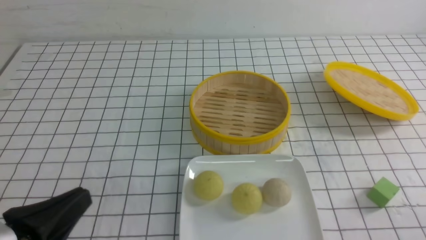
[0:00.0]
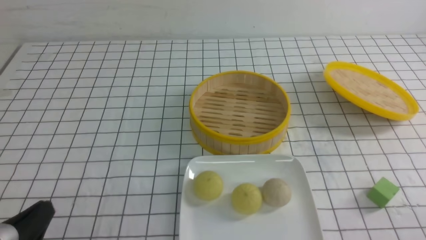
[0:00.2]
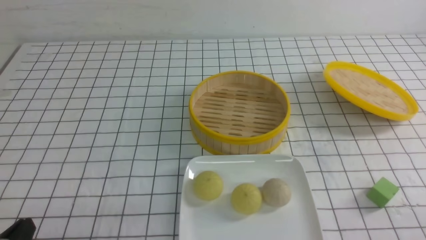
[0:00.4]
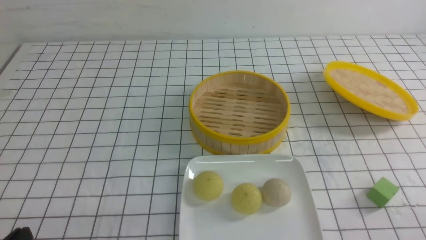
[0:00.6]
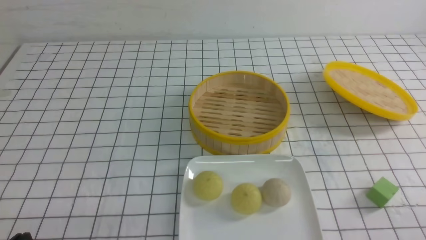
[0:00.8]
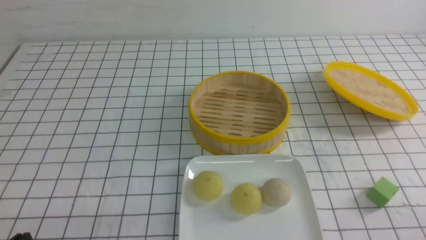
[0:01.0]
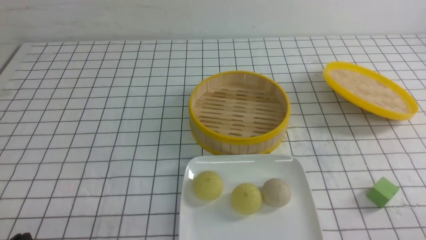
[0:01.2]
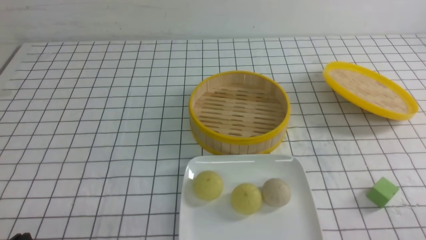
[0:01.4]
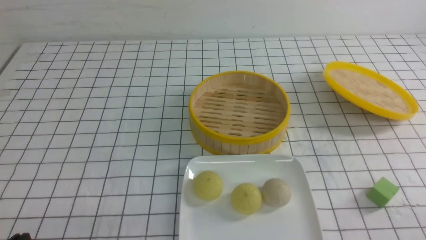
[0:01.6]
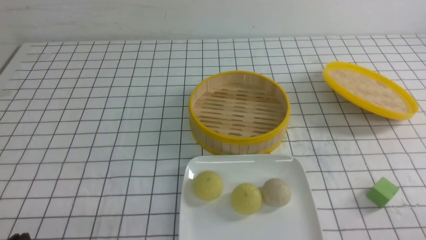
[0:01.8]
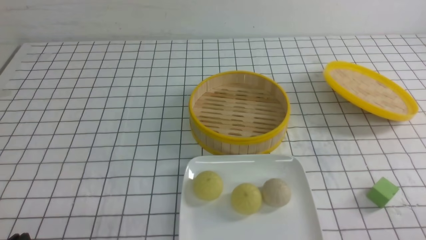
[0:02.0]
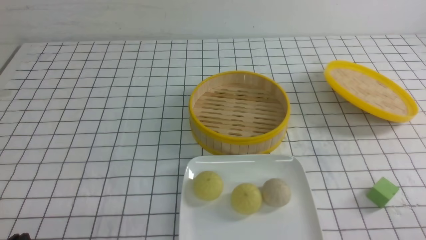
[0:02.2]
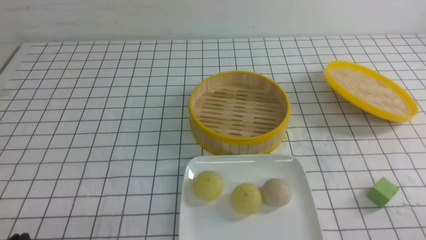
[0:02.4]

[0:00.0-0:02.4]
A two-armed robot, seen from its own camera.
0:00.0 to 0:01.2: The left gripper shifts about 5 cm downward.
0:01.2 to 0:02.4: Both grippers stay about where they are.

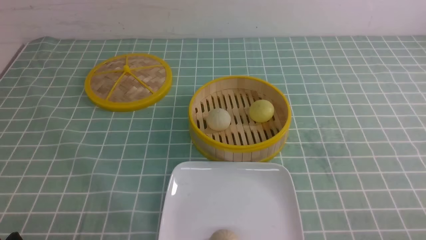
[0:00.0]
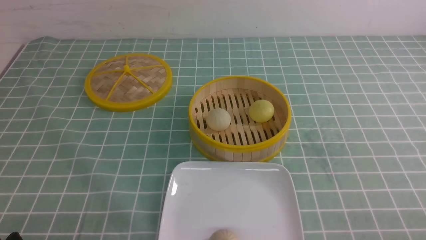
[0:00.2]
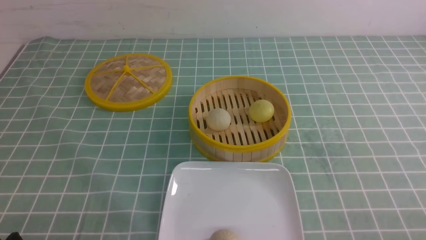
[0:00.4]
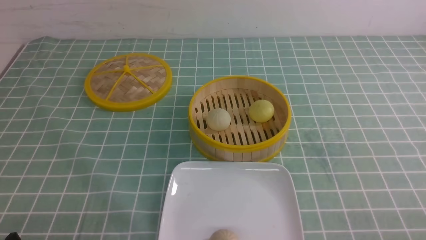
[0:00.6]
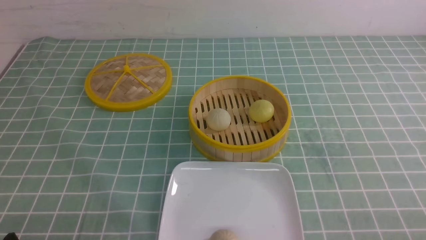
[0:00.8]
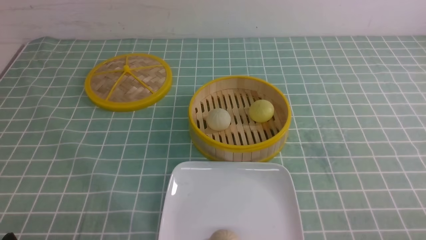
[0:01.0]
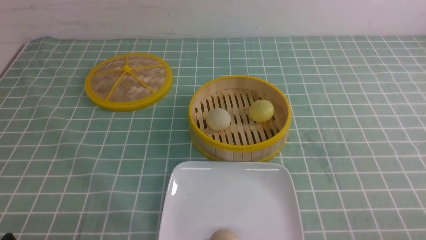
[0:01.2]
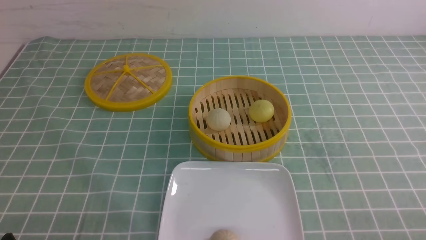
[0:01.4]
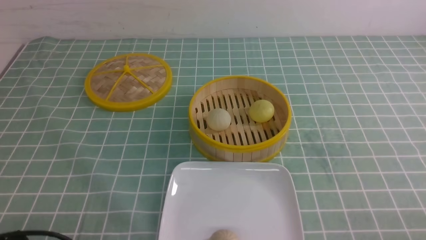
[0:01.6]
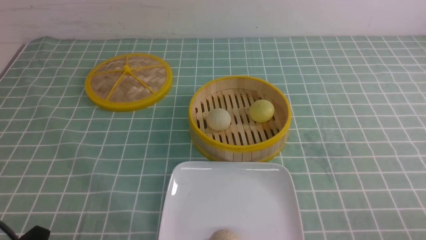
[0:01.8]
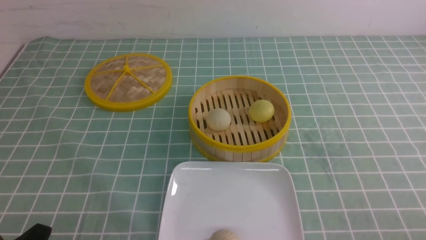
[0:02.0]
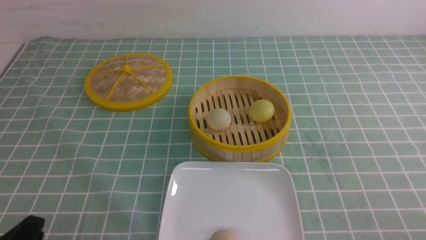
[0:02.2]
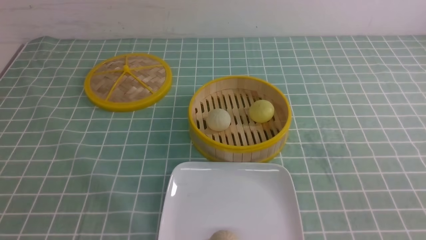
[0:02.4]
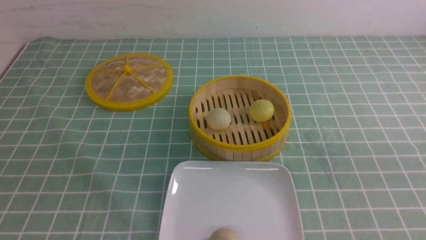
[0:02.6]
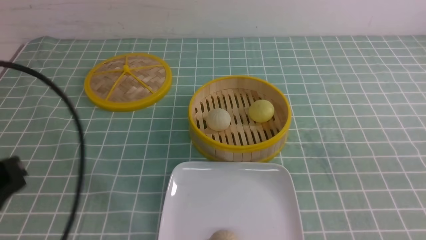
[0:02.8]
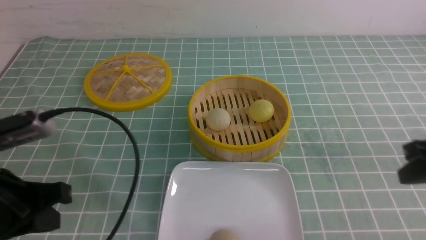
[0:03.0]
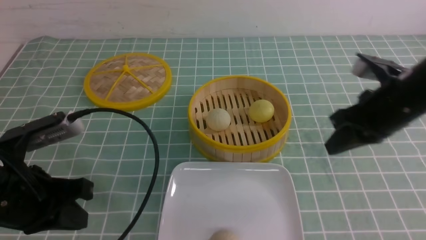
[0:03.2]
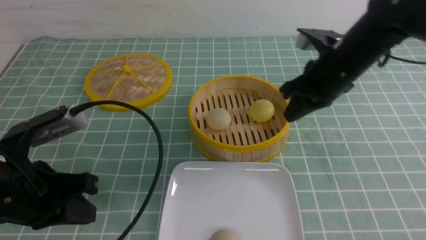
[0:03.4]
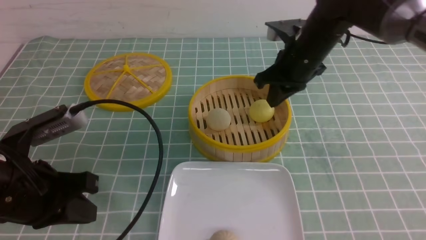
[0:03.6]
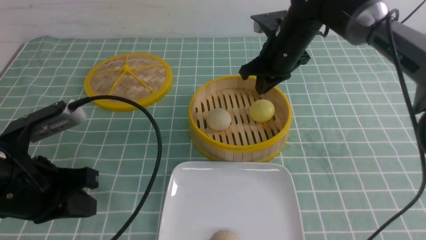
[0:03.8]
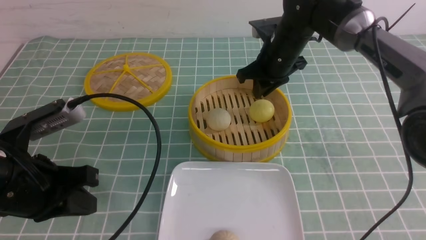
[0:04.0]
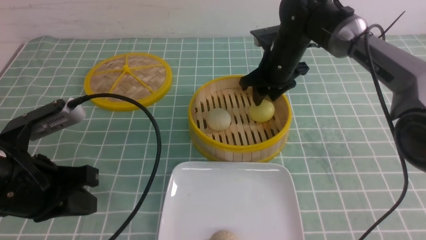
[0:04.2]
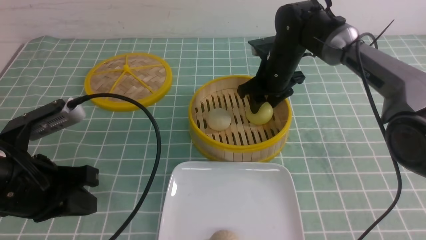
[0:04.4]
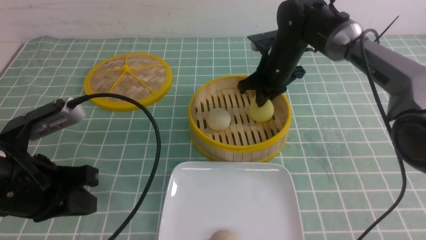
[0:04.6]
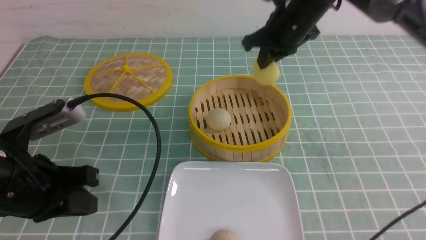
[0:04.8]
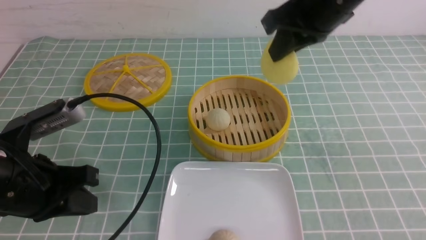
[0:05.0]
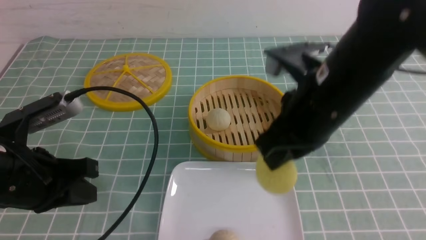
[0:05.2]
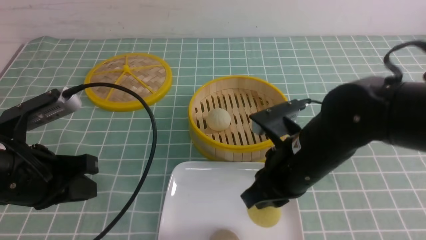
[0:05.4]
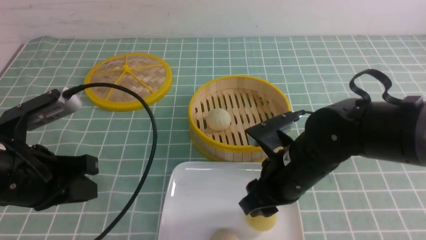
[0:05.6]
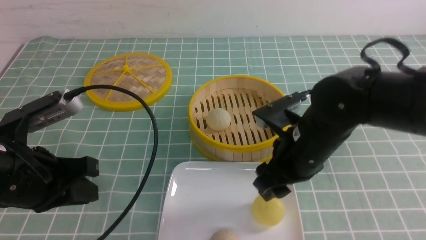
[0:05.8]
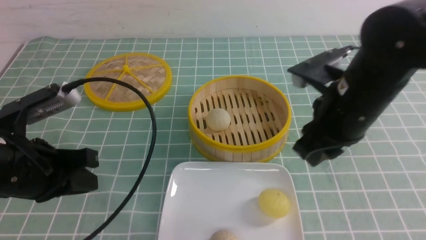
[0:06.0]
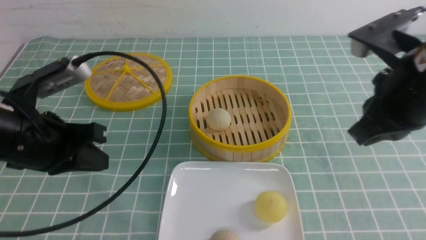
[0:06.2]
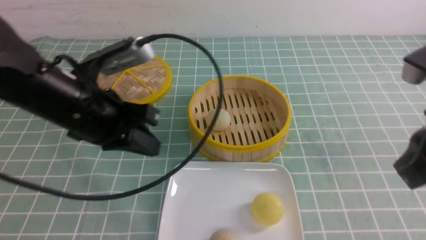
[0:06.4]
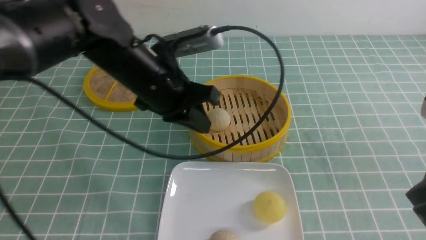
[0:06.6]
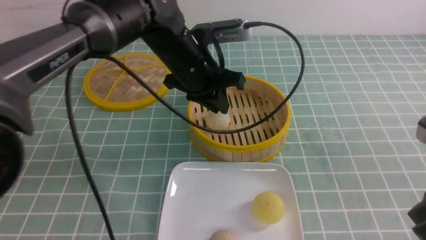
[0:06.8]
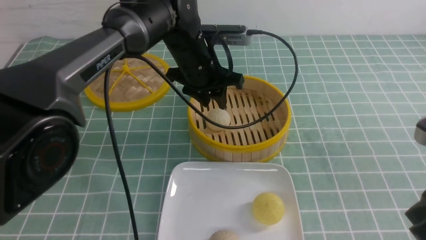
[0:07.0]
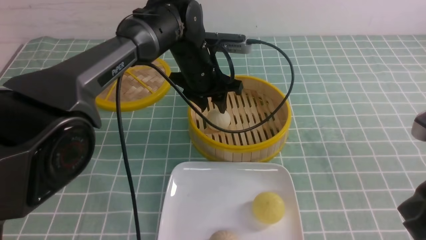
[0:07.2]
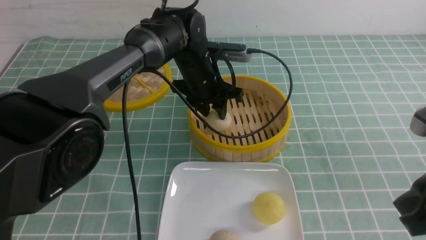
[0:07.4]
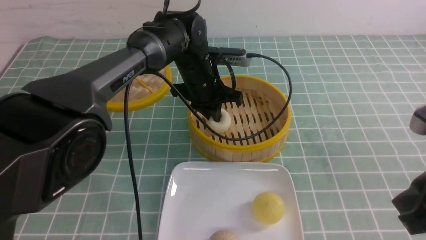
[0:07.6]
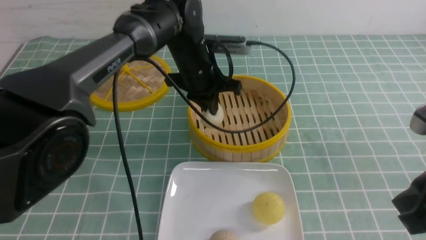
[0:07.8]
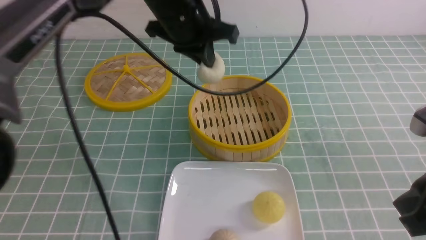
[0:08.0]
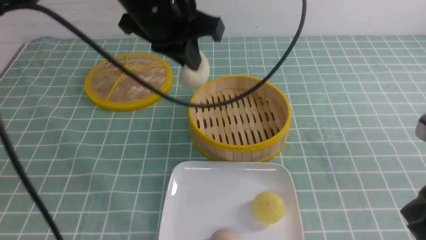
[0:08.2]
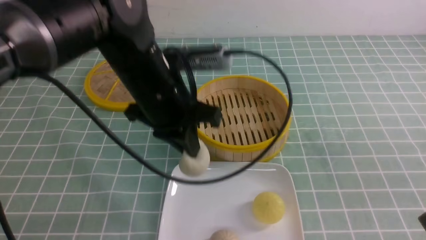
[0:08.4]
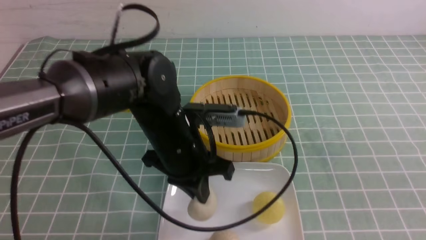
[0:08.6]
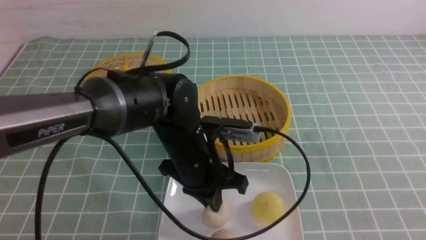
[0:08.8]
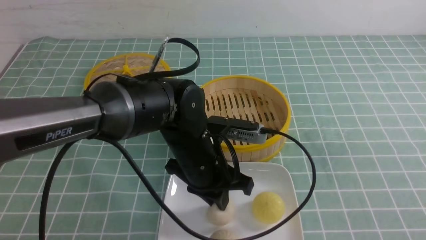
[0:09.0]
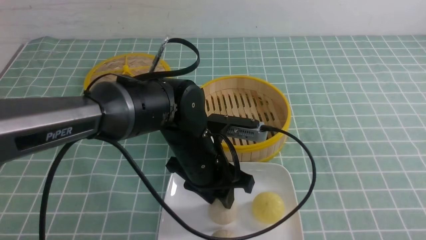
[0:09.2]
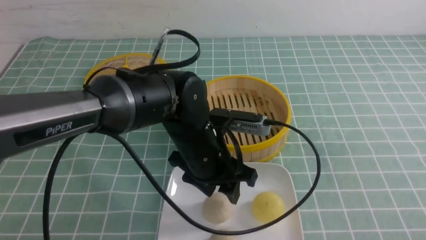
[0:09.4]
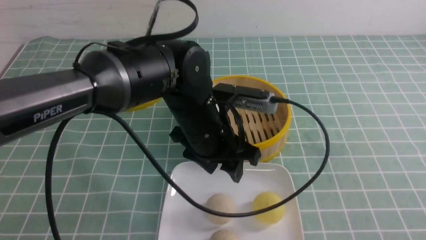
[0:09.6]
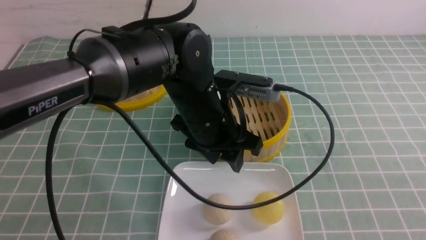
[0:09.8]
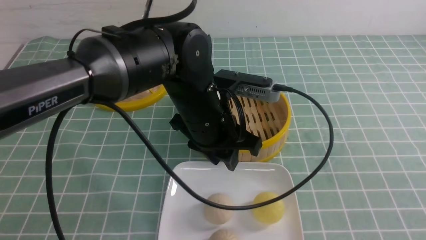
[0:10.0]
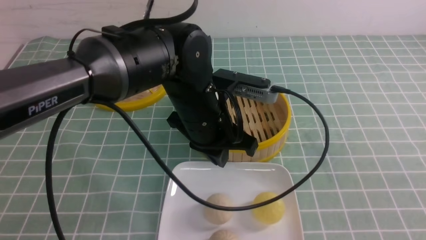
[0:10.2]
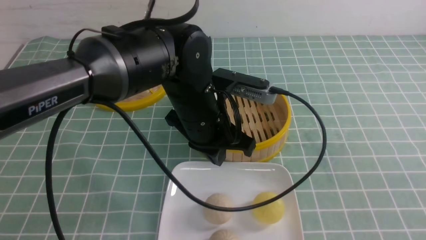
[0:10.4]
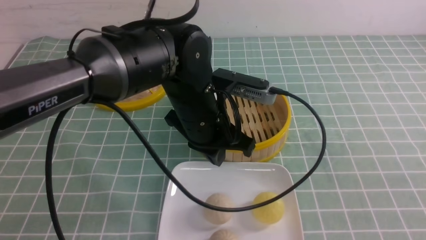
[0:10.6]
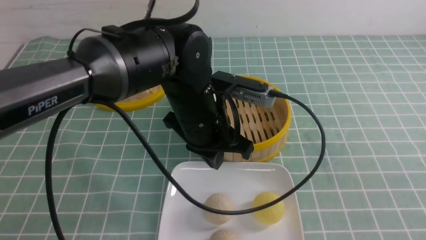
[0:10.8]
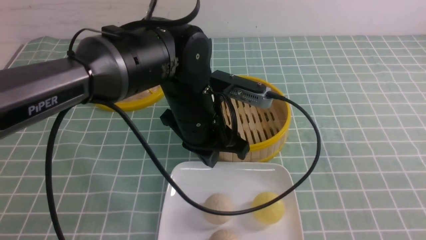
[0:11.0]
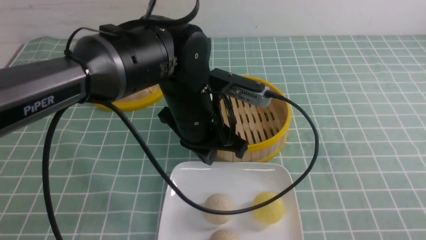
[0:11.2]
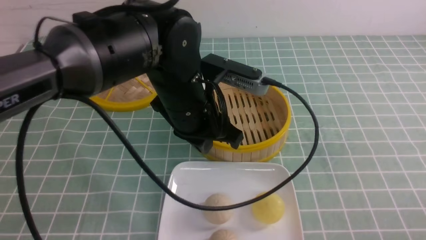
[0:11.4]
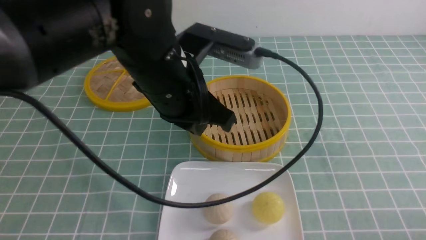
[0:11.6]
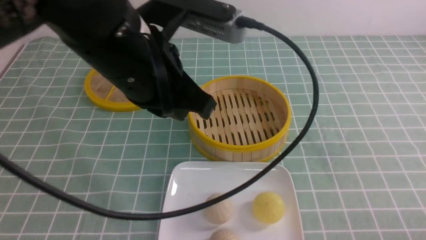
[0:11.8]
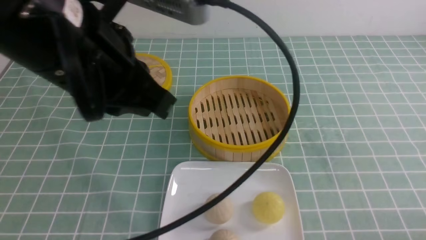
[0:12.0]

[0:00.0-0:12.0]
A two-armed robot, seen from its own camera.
Step, 0:00.0 to 0:04.4: use the right arm to grab the steamed stuffed bun that is closest to it.
Step, 0:04.6 to 0:05.6: use the right arm to put the steamed stuffed bun into the plate.
Step, 0:05.8 to 0:07.6: use the left arm to grab the steamed stuffed bun that is closest to it.
Step, 0:07.8 to 0:09.2: use the left arm to put the steamed stuffed bun into the plate.
0:01.6 to 0:03.0: The right gripper goes approximately 20 cm forward and upward, and closes its fingers. Meanwhile the left gripper travels upward and forward by about 15 cm, and closes.
0:03.0 to 0:04.4: The right gripper goes some 30 cm forward and to the left, and opens its fingers.
0:04.4 to 0:06.0: The right gripper moves backward, about 20 cm, and closes and opens again.
0:06.0 to 0:07.6: The right gripper travels backward and to the right by roughly 15 cm, and closes its fingers; the left gripper shifts approximately 30 cm forward and to the right, and opens, then closes once more.
0:07.6 to 0:09.0: The left gripper is displaced backward by some 15 cm. Meanwhile the right gripper moves backward and to the right, some 20 cm.
0:09.0 to 0:10.4: The left gripper shifts about 5 cm upward, and closes its fingers, while the right gripper moves downward, about 5 cm.
0:10.4 to 0:12.0: The left gripper moves upward, backward and to the left, some 20 cm; the right gripper travels downward by some 10 cm.

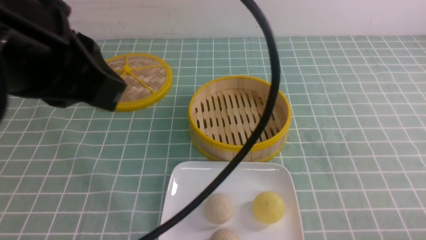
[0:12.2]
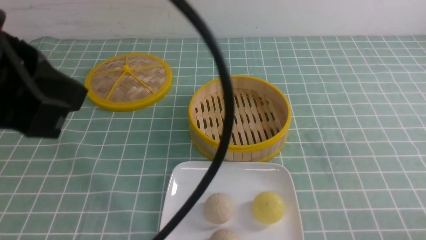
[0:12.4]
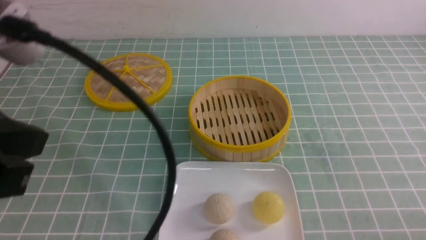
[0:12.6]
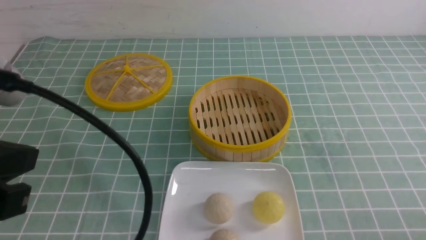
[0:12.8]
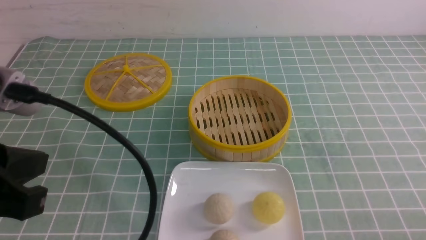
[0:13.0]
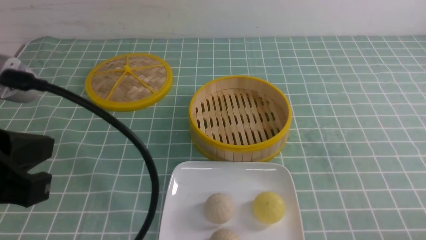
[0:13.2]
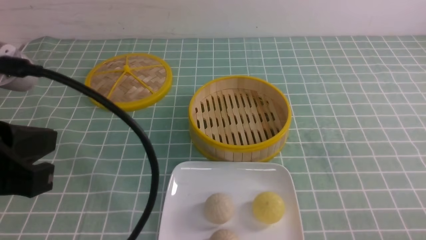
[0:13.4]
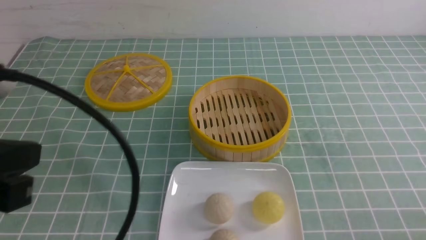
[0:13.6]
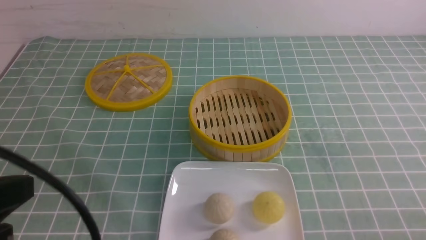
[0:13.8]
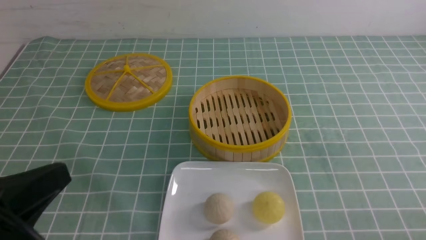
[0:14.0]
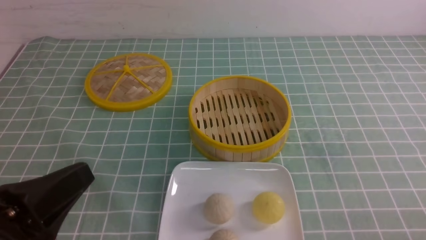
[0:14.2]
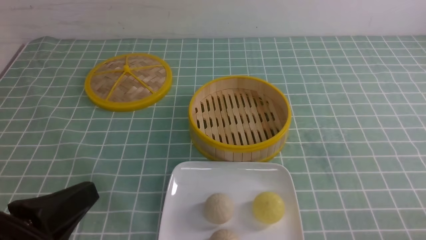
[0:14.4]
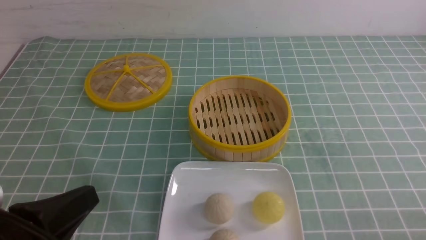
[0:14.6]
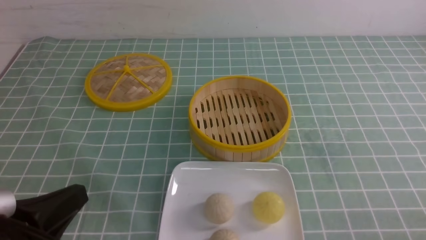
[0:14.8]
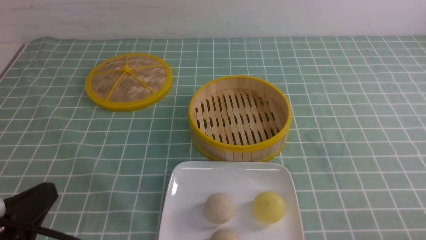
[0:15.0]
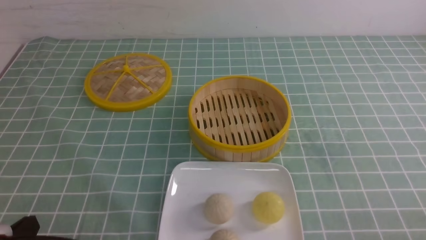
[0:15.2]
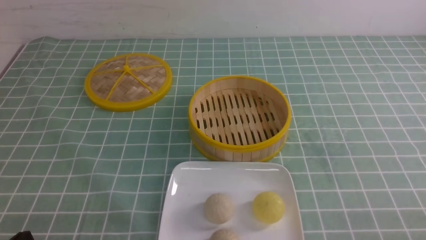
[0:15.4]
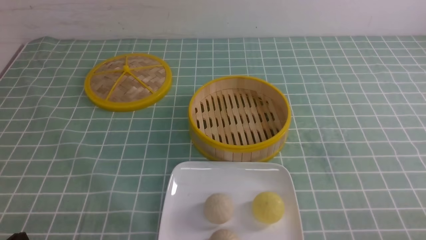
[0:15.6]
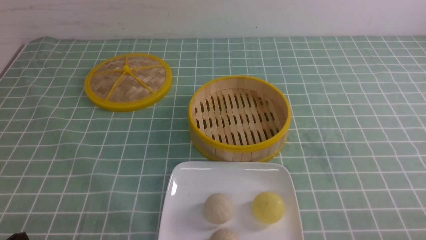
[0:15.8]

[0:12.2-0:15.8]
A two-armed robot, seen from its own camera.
0:12.2 to 0:14.0: The left gripper heads downward, backward and to the left, covering roughly 15 cm.
0:14.0 to 0:15.8: The left gripper shifts some 15 cm downward.
